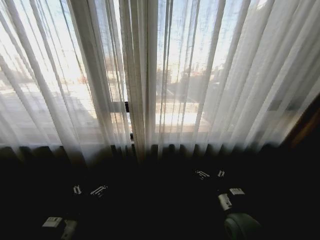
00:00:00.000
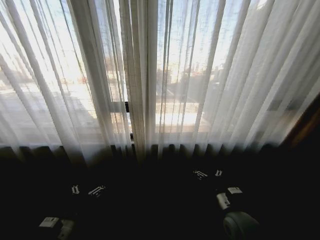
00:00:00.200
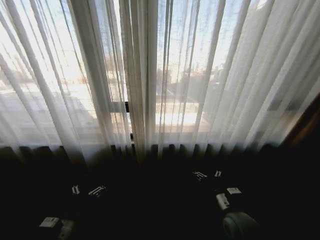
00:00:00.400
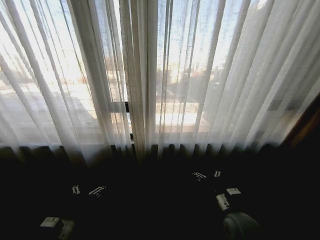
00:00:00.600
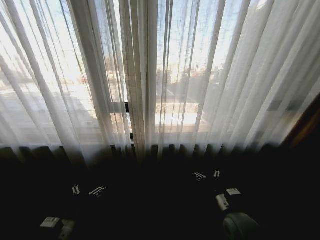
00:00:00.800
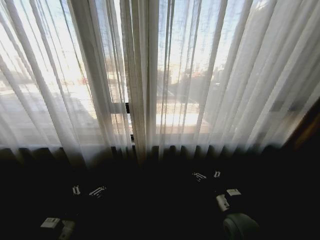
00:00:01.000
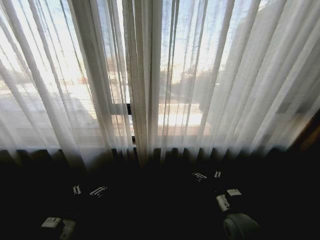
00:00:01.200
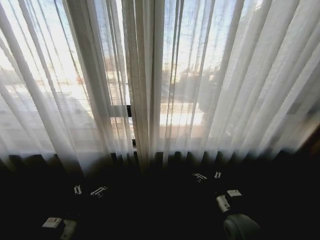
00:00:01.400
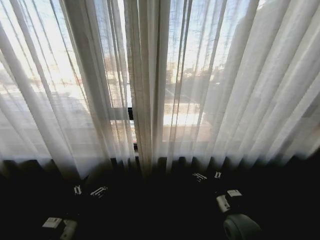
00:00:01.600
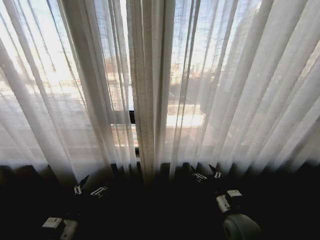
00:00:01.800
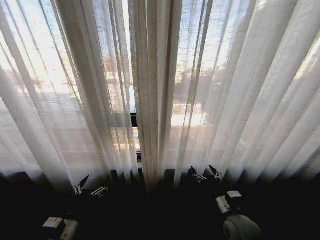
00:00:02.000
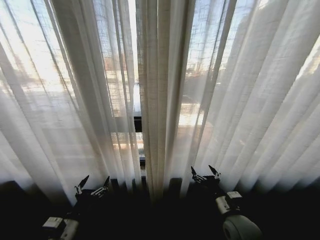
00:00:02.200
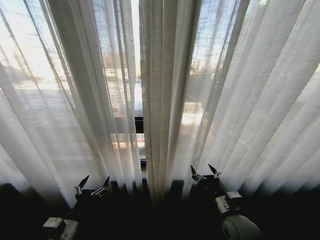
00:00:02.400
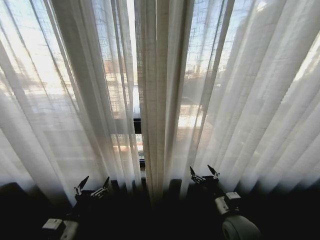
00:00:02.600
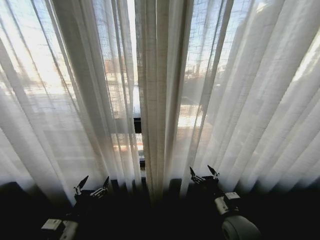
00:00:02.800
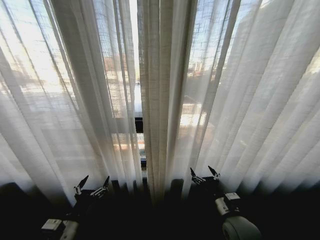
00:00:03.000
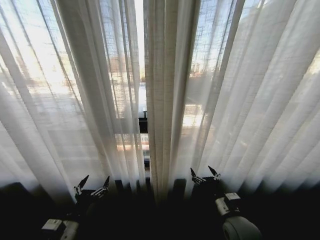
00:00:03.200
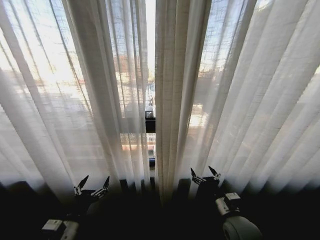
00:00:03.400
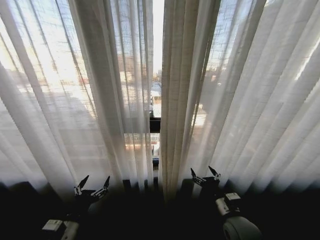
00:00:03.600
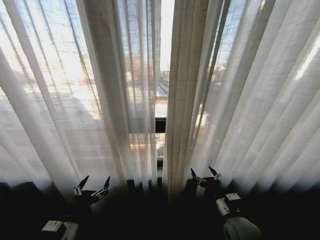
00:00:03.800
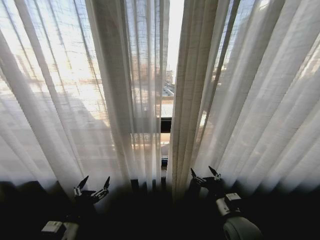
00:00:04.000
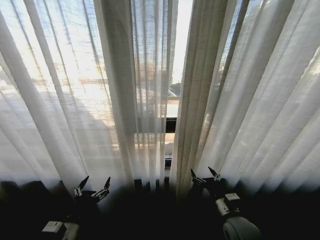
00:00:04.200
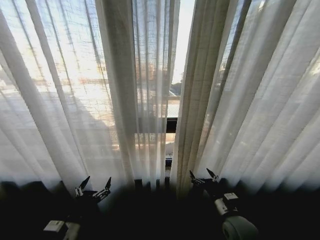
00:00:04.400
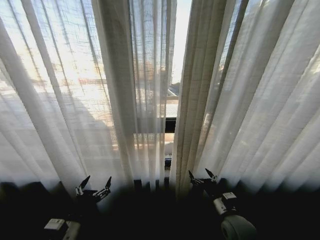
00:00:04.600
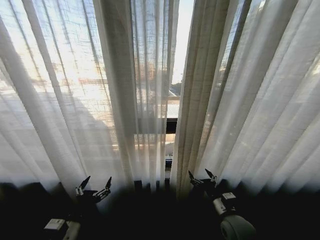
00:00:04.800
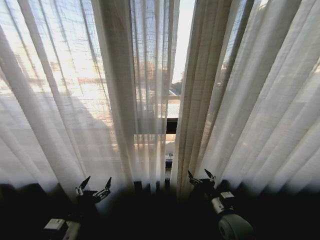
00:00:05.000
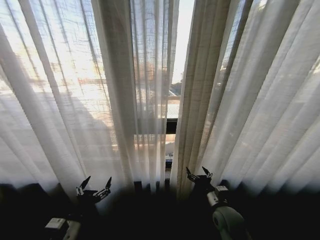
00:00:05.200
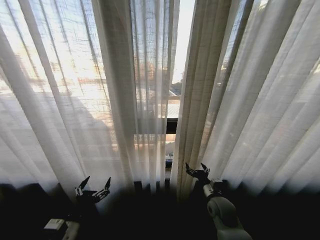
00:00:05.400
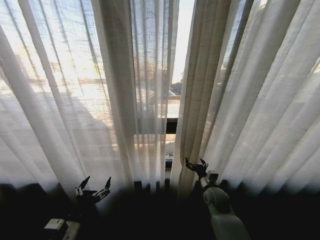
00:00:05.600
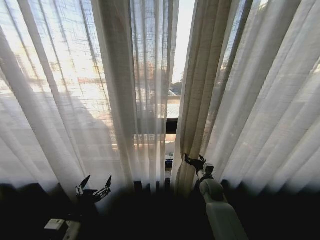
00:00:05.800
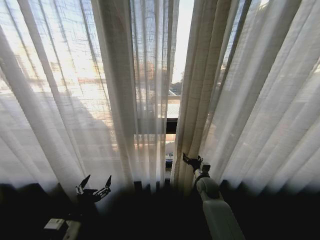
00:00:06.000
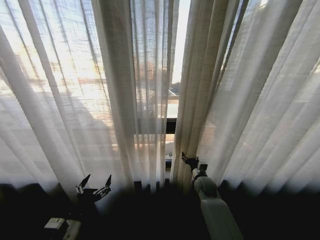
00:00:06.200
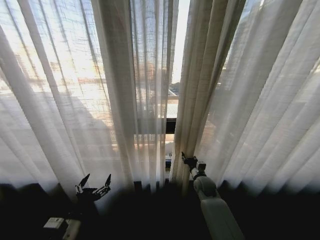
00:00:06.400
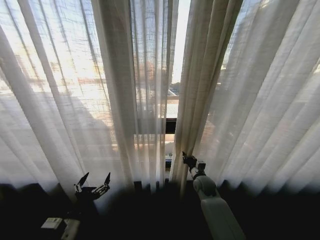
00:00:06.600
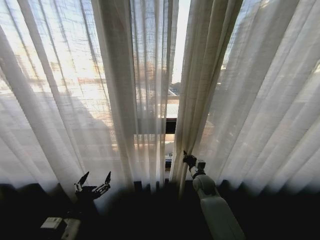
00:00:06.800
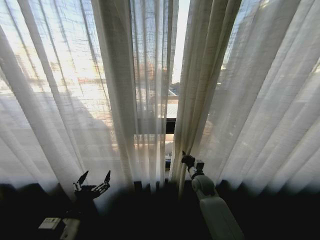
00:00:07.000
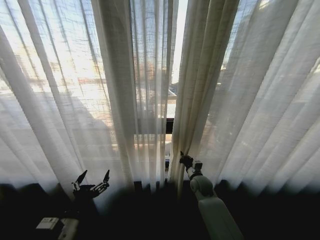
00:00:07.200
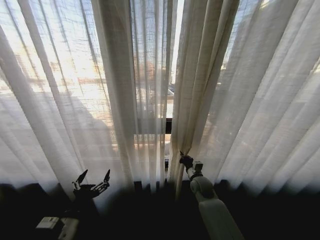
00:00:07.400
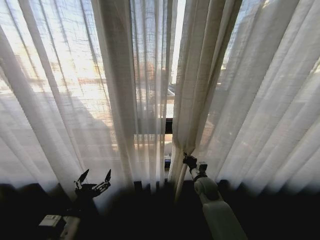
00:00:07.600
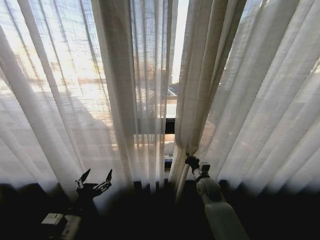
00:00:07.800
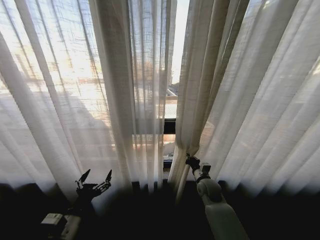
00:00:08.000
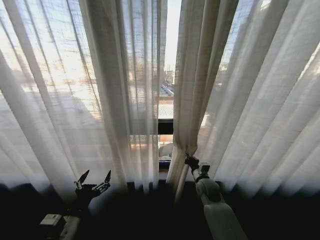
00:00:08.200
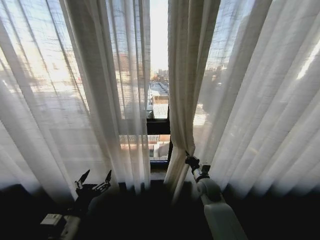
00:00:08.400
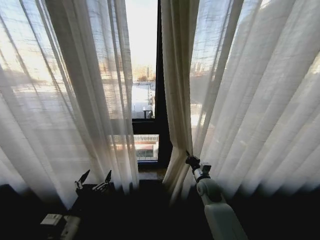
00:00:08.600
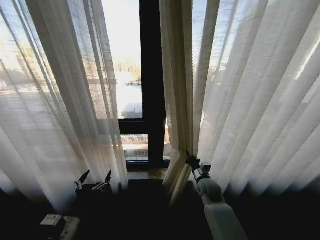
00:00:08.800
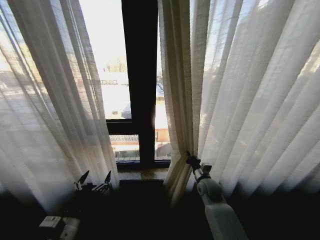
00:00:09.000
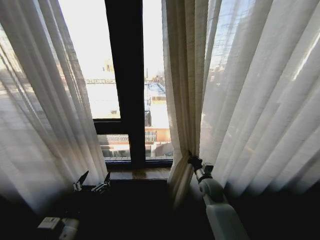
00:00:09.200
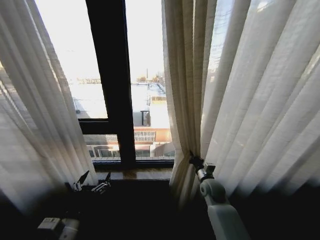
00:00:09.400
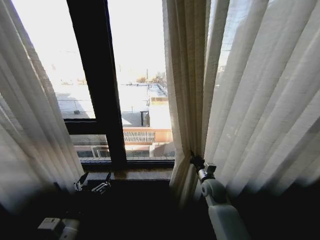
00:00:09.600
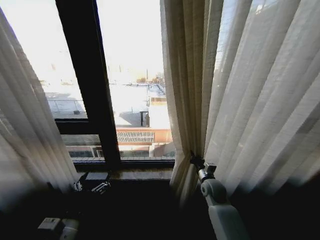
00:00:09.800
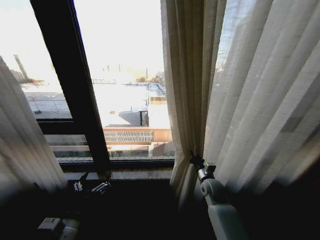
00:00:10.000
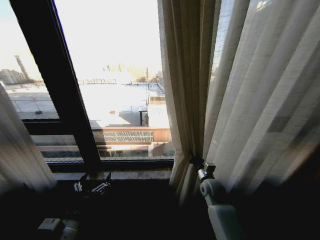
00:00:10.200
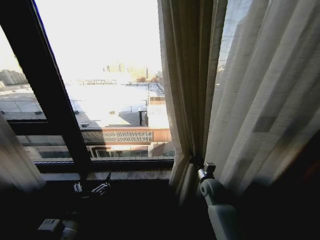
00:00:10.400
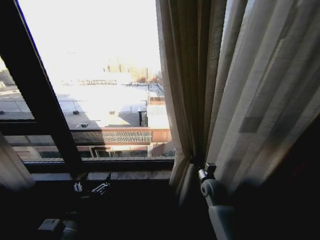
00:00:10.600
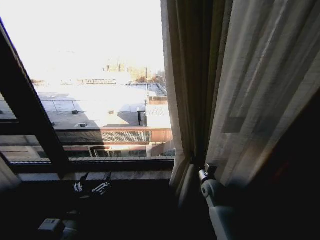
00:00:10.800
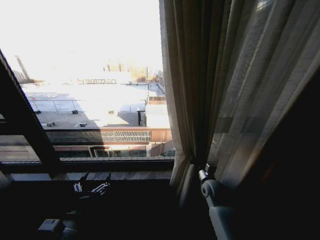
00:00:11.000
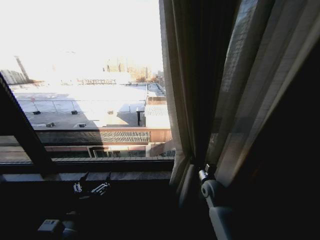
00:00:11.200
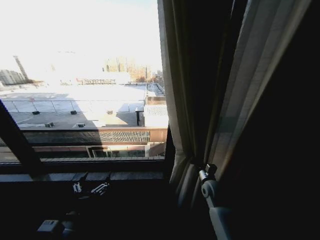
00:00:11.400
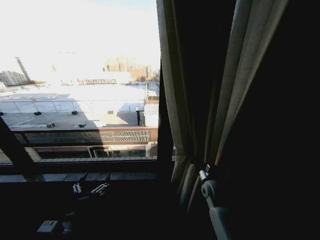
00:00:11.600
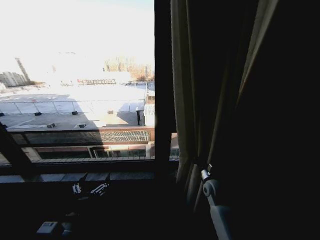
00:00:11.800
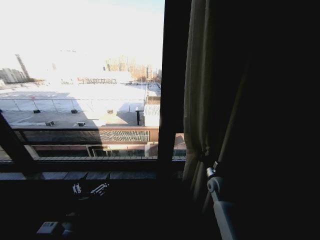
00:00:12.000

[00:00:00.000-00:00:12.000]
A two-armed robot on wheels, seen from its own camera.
Task of the whole recording: Open the curtains by pulling them apart, changing their state from closed to fully open.
00:00:04.400 to 00:00:06.000: The right gripper moves forward, roughly 20 cm.
00:00:06.000 to 00:00:07.600: The right gripper closes.

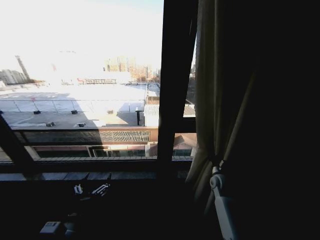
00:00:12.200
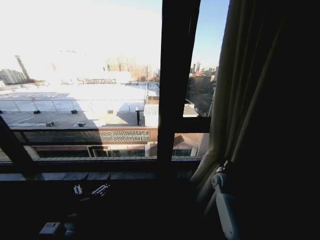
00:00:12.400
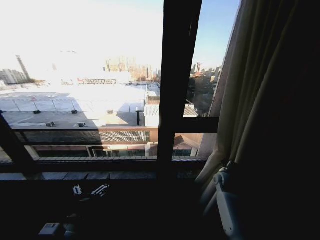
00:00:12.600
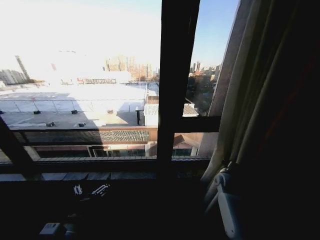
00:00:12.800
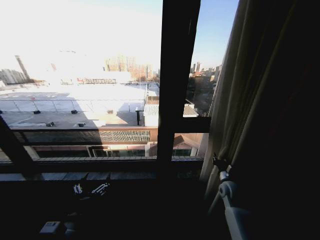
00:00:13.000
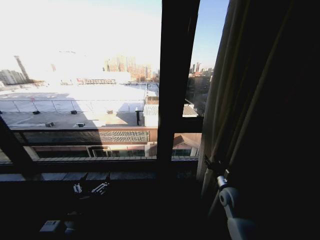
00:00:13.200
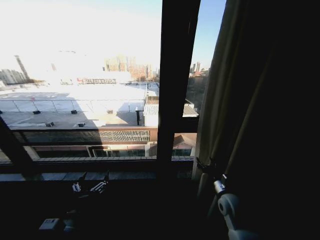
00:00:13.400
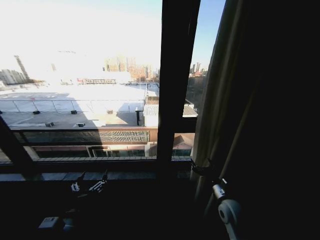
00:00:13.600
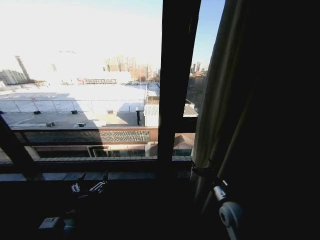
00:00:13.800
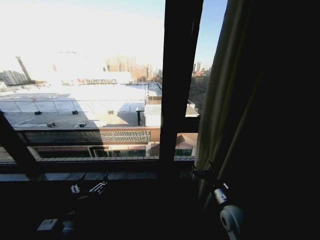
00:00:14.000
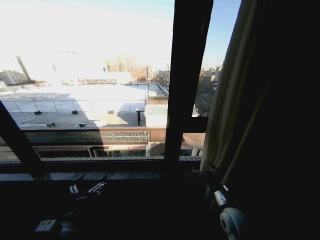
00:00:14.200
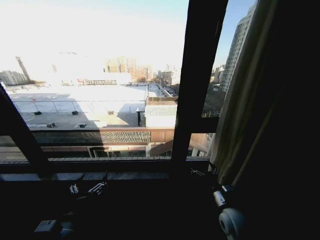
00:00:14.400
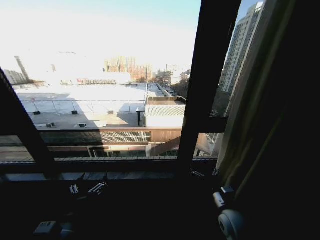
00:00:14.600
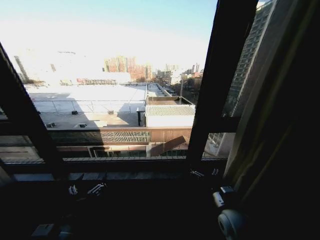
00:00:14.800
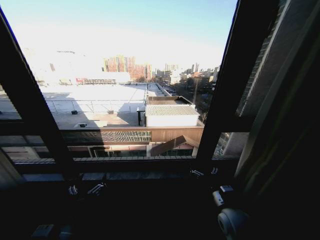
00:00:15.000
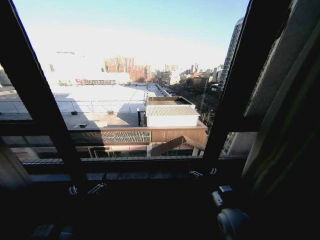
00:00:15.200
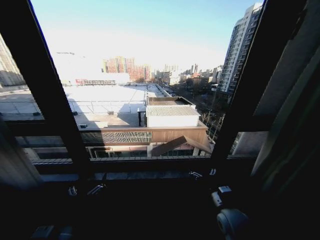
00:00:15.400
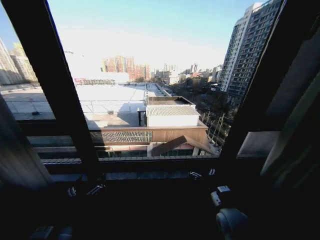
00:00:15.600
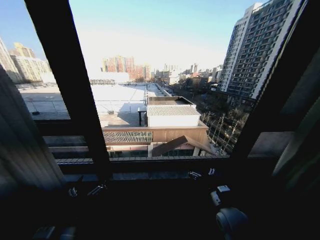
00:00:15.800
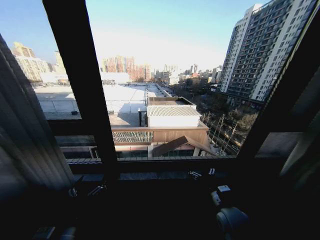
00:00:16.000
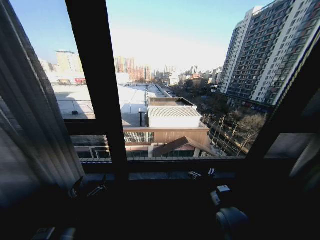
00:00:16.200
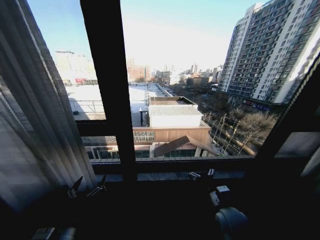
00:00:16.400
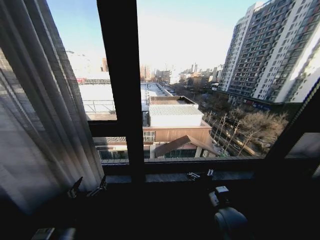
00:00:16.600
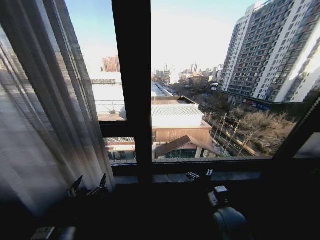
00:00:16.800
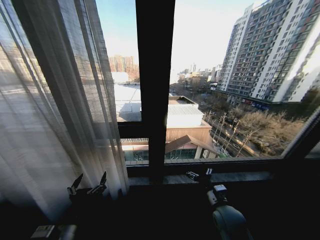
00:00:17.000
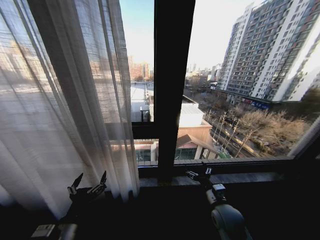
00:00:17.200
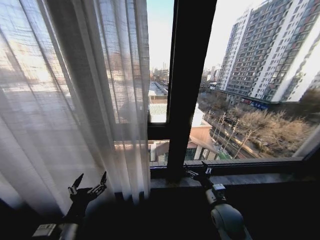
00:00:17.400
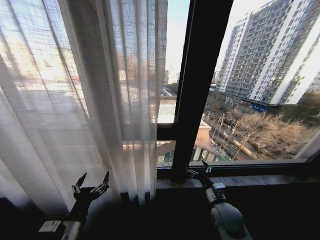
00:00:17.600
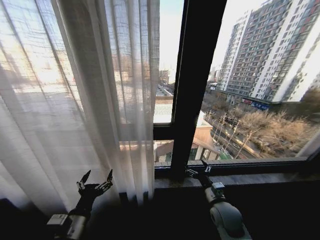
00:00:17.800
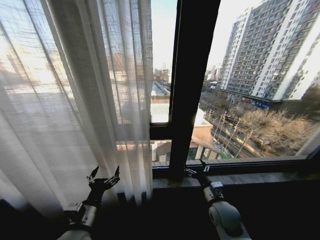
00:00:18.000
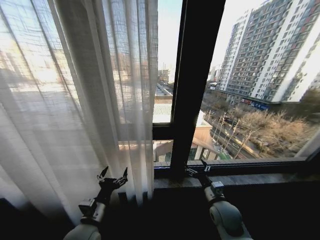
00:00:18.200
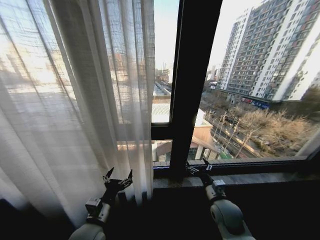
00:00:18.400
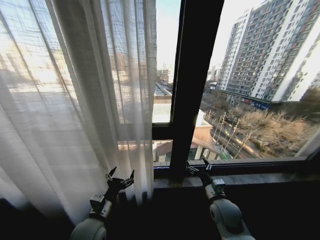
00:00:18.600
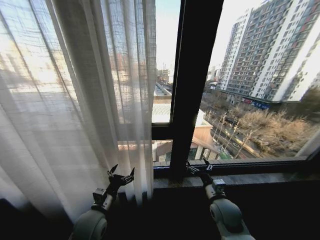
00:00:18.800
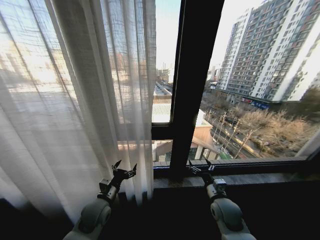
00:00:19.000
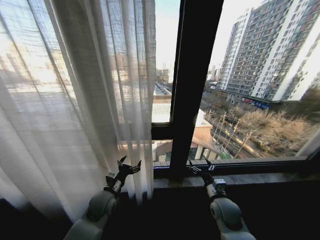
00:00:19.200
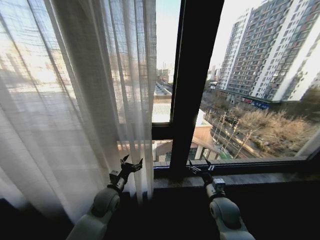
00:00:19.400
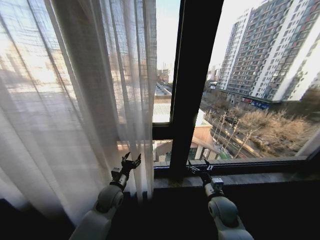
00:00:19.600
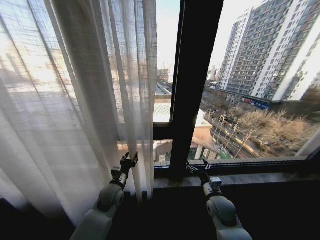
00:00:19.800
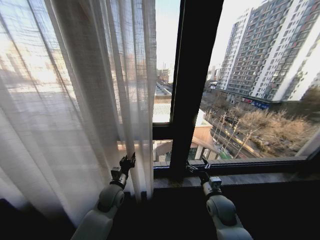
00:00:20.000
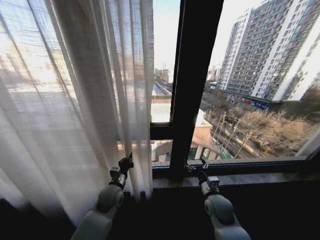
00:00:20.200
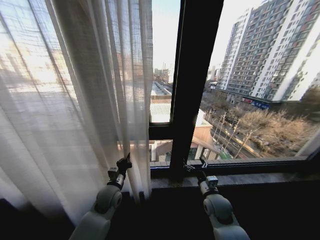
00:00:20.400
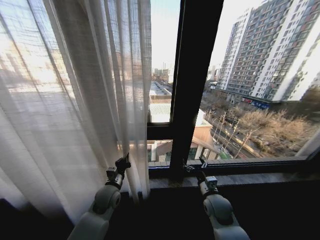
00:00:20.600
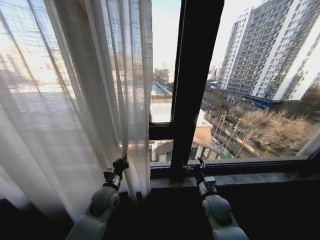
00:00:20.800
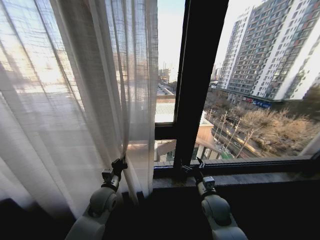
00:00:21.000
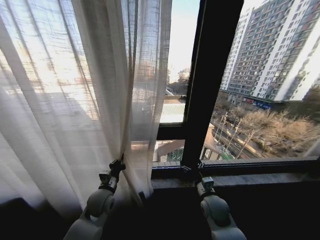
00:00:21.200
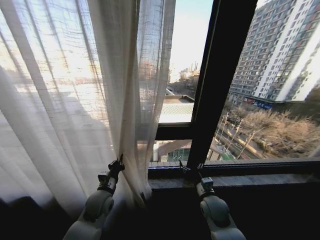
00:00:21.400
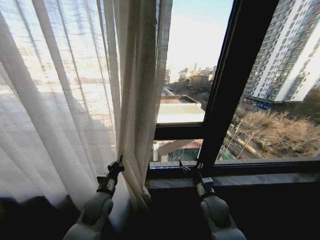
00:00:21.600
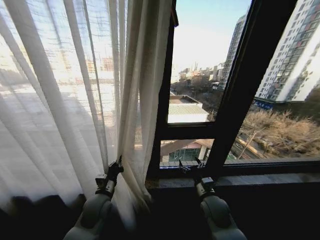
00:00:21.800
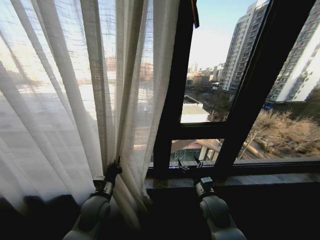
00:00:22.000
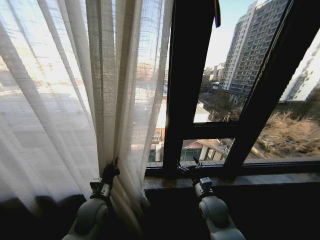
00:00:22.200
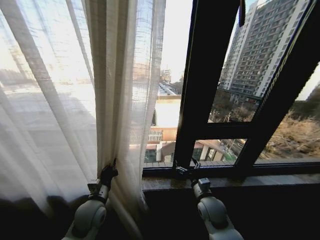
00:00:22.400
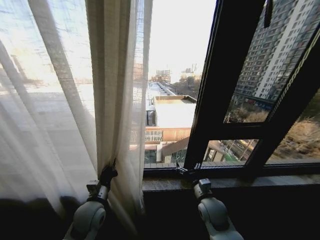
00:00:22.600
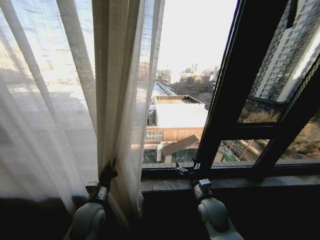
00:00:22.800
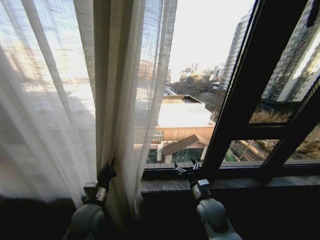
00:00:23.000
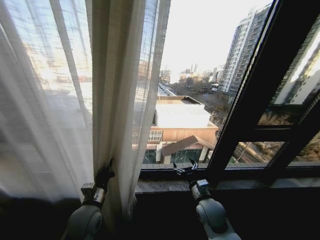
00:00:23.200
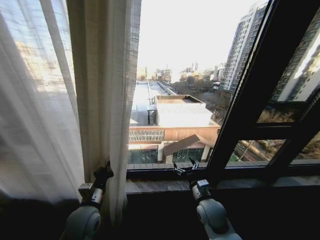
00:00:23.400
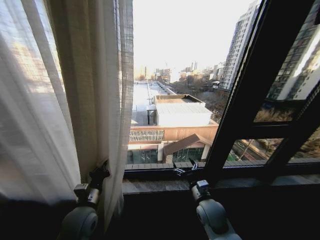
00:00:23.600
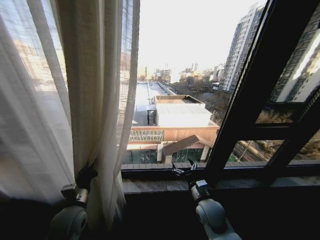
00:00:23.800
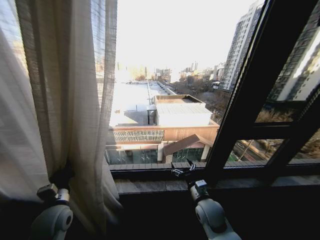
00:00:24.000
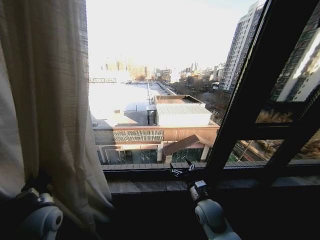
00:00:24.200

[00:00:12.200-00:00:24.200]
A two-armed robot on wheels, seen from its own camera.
Task of the whole recording: Open the curtains by pulling them apart, changing their state from closed to fully open.
00:00:12.200 to 00:00:13.800: The right gripper shifts about 15 cm backward, and opens.
00:00:16.600 to 00:00:18.200: The left gripper heads forward, covering about 10 cm.
00:00:18.200 to 00:00:19.800: The left gripper heads forward, covering roughly 15 cm, and closes up.
00:00:19.800 to 00:00:21.200: The left gripper closes.
00:00:21.200 to 00:00:22.600: The left gripper is displaced backward by about 5 cm.
00:00:22.600 to 00:00:24.200: The left gripper heads to the left, covering some 15 cm.
